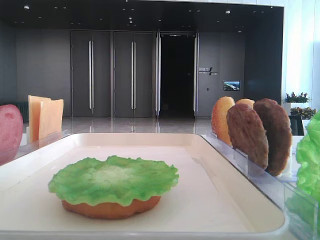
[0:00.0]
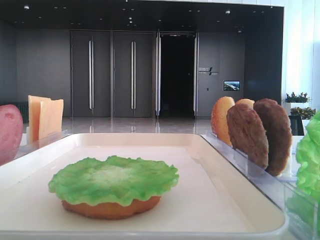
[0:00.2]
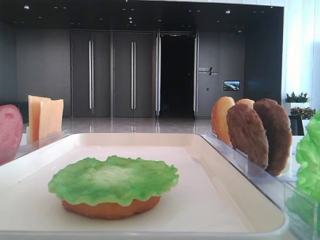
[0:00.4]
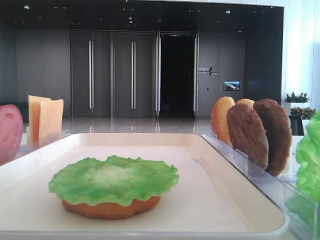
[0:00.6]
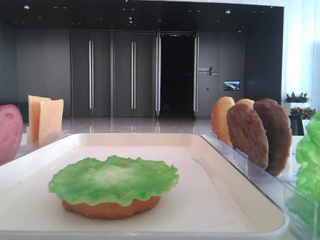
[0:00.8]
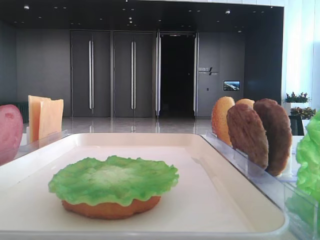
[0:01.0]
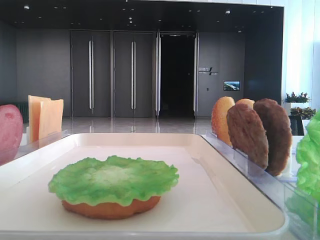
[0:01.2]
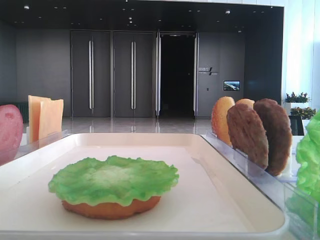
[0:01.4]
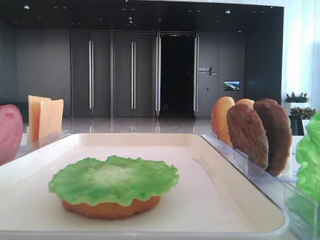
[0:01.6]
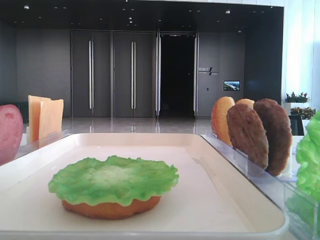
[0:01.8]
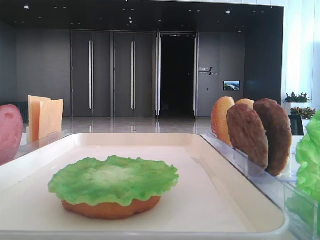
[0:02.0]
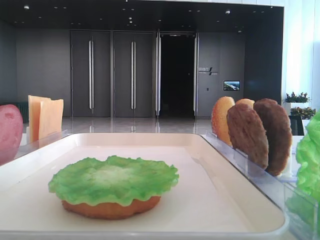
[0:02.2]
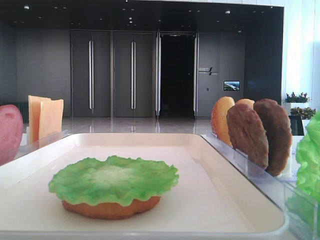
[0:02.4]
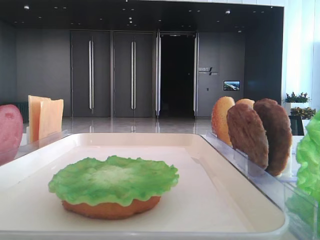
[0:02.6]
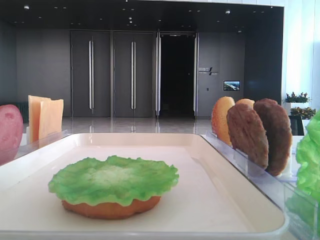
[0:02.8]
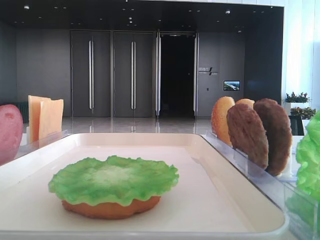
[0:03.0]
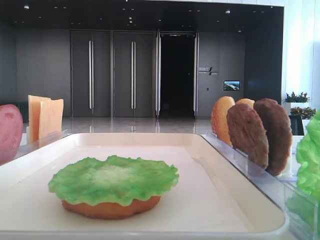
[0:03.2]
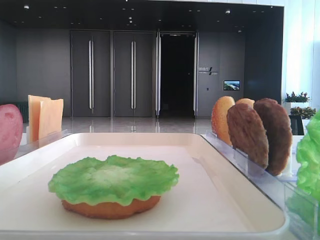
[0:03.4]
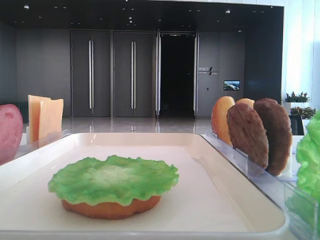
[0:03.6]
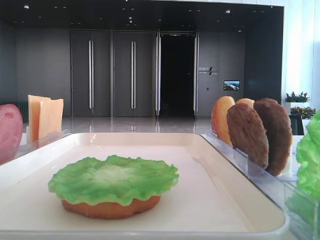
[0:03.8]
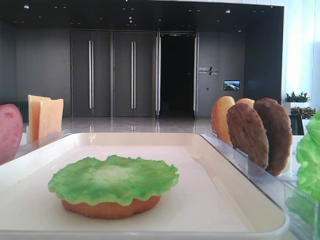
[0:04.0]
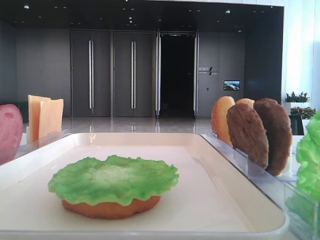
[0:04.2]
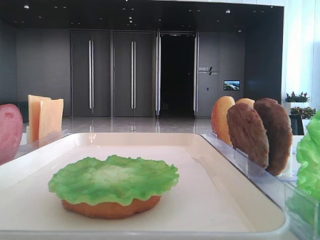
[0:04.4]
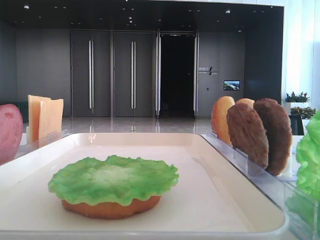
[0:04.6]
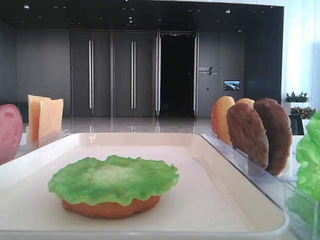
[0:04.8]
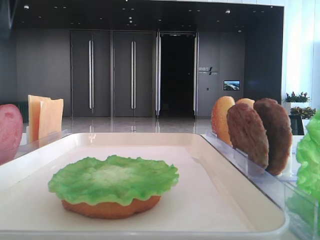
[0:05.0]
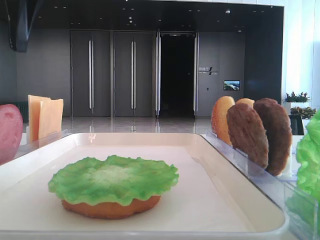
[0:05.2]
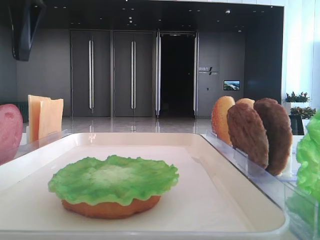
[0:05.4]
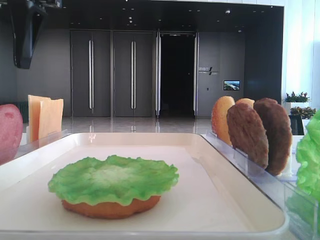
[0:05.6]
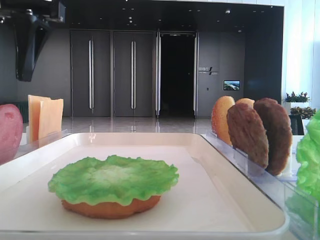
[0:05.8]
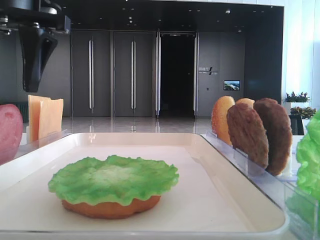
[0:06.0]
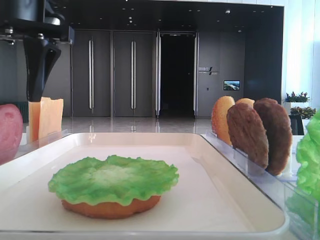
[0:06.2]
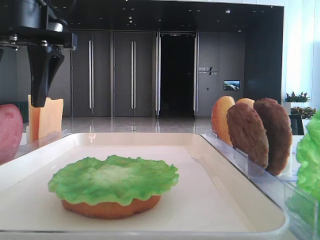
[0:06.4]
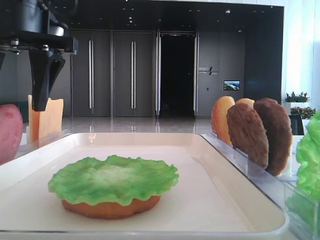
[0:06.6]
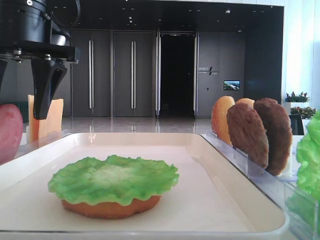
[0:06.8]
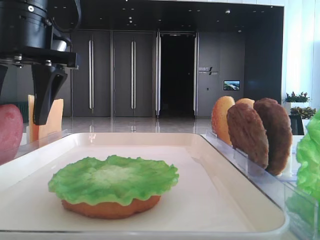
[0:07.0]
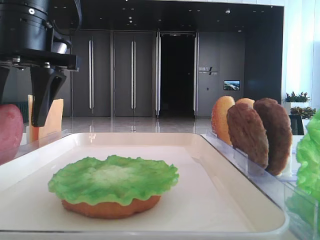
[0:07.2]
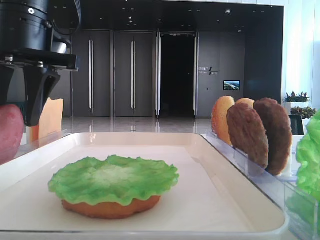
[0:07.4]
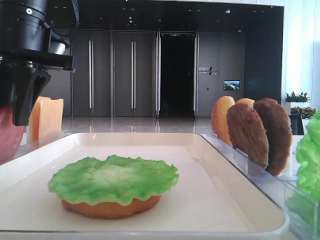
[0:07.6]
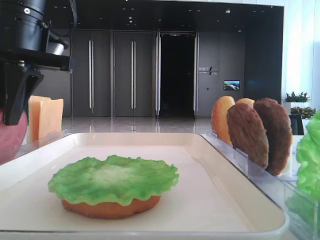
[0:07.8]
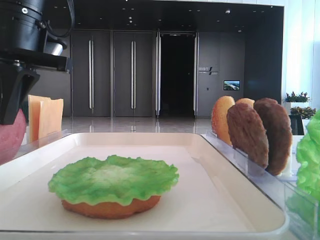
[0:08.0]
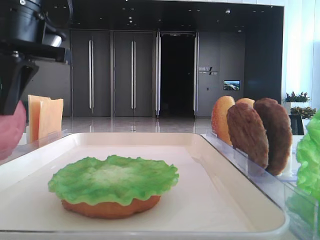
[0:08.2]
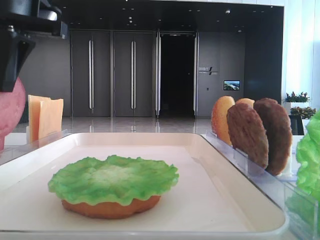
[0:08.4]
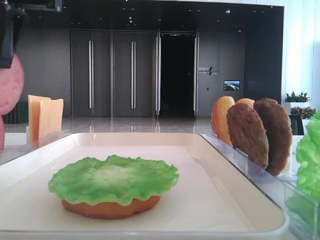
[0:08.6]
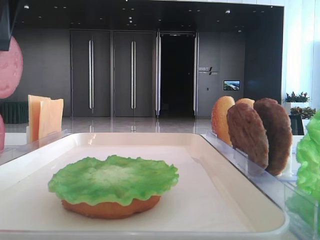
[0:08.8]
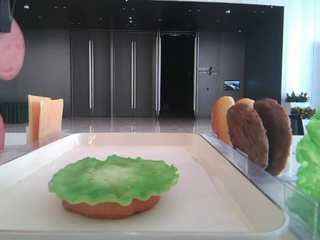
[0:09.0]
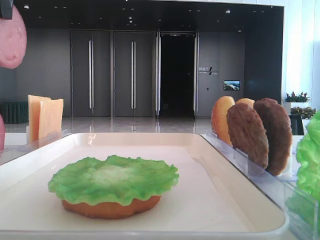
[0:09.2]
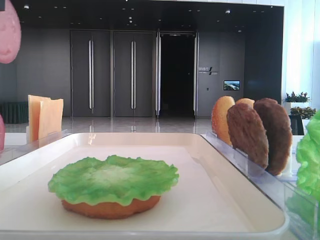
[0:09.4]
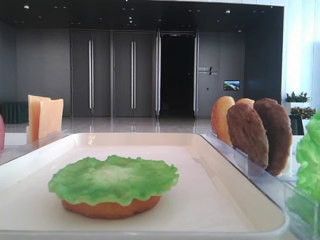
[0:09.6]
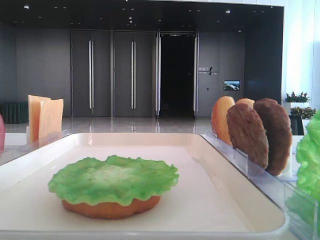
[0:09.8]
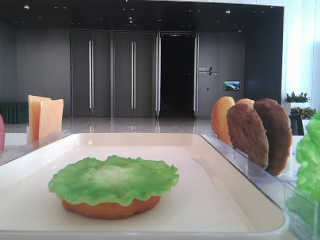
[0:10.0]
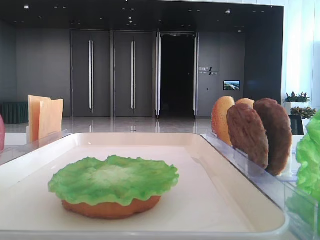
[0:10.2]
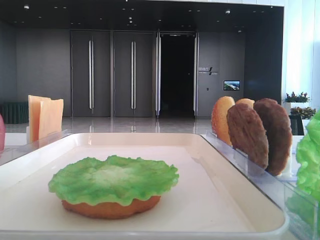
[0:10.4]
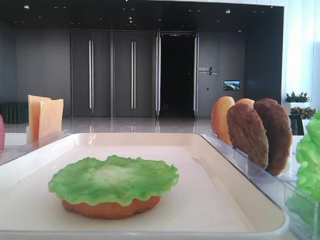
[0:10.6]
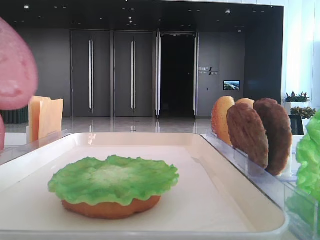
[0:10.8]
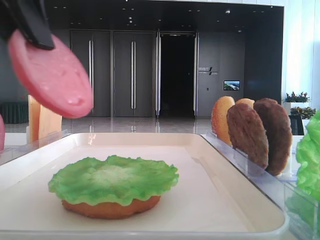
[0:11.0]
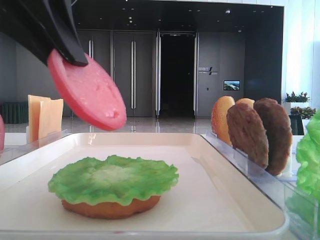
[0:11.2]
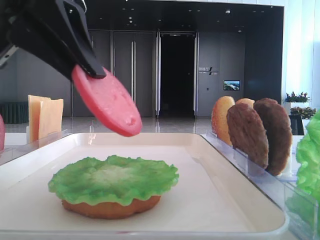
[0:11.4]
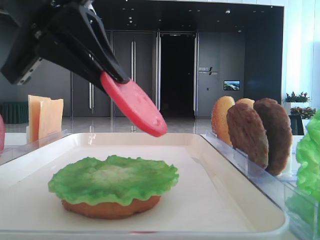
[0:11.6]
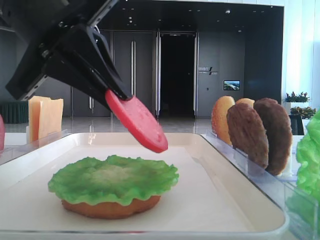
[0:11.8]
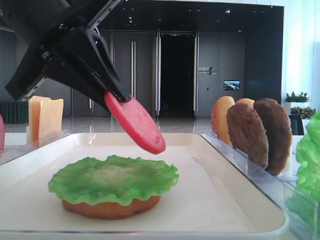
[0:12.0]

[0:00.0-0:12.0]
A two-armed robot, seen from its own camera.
Step, 0.0 to 7.8 s: Pick up the tomato slice with the left hand.
4.4 to 6.0 s: The left gripper shifts about 20 cm to the right and downward.
6.0 to 7.6 s: The left gripper closes its fingers.
7.6 to 9.0 s: The left gripper heads upward, covering approximately 10 cm.
9.0 to 10.4 s: The left gripper shifts some 10 cm backward.
10.4 to 12.0 s: The left gripper shifts about 20 cm downward, to the right and forward.

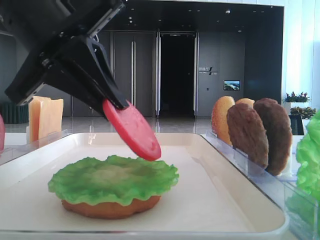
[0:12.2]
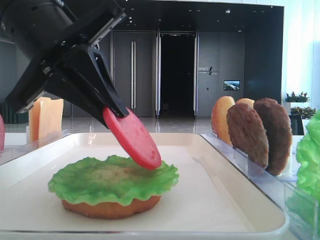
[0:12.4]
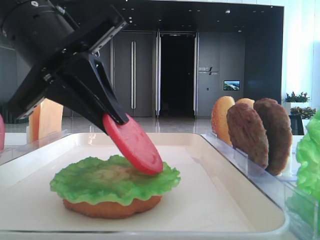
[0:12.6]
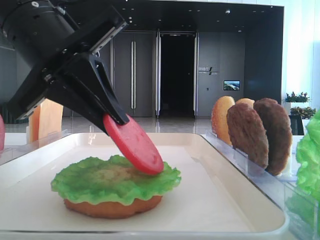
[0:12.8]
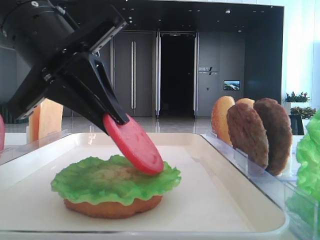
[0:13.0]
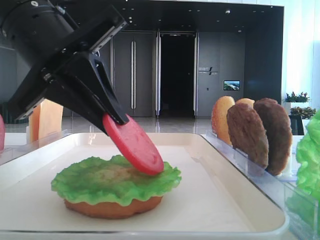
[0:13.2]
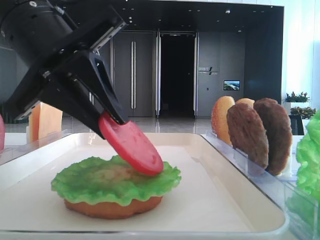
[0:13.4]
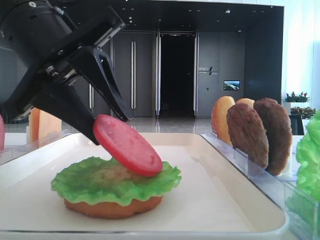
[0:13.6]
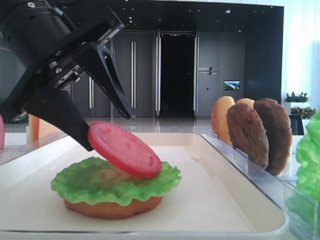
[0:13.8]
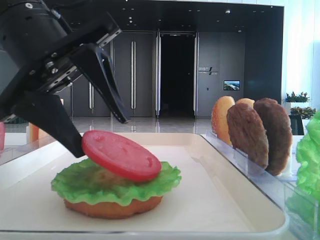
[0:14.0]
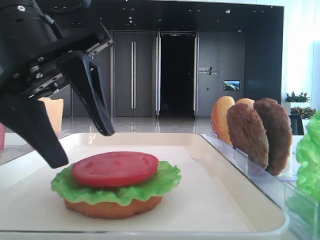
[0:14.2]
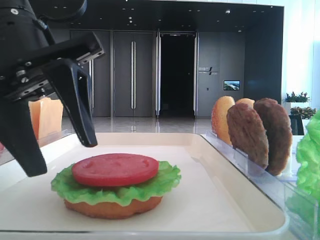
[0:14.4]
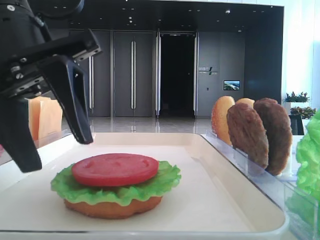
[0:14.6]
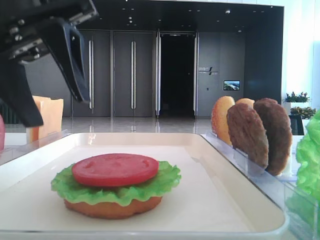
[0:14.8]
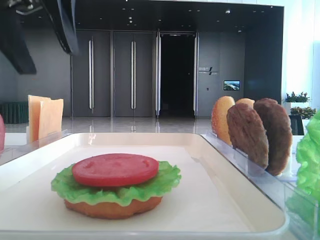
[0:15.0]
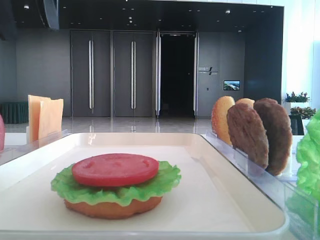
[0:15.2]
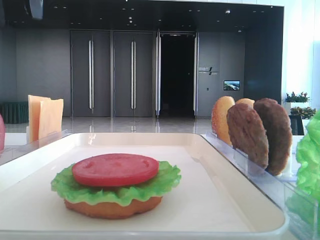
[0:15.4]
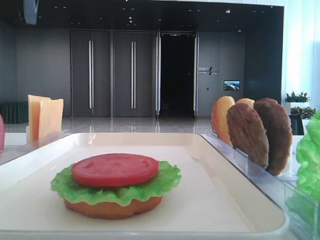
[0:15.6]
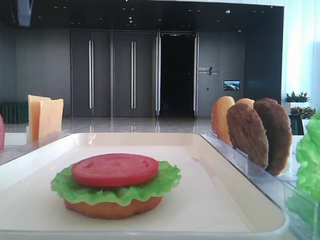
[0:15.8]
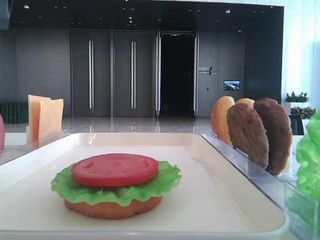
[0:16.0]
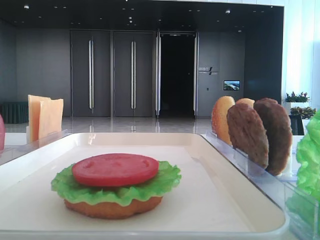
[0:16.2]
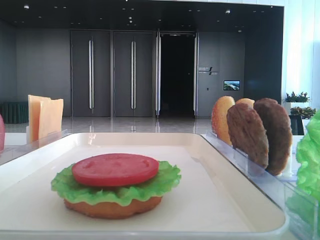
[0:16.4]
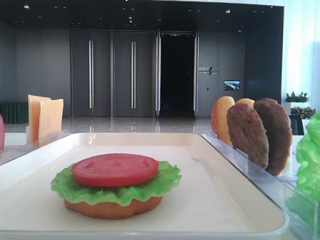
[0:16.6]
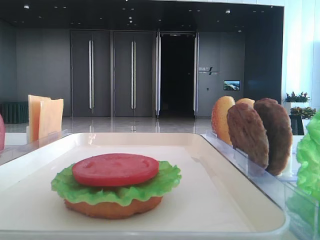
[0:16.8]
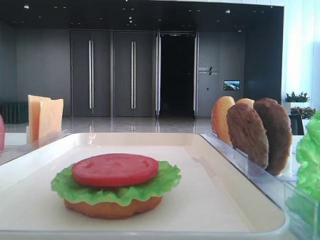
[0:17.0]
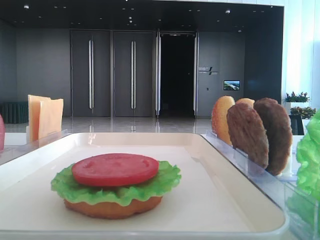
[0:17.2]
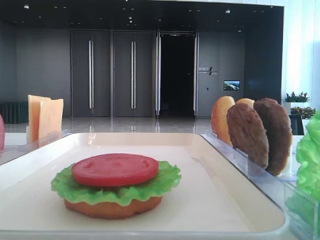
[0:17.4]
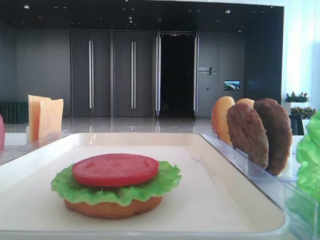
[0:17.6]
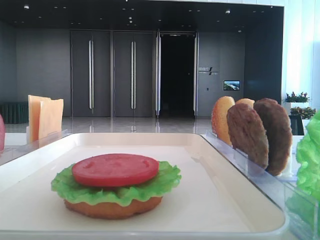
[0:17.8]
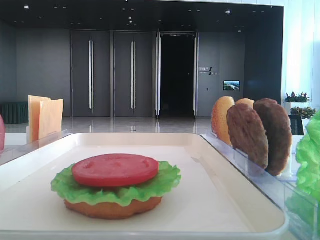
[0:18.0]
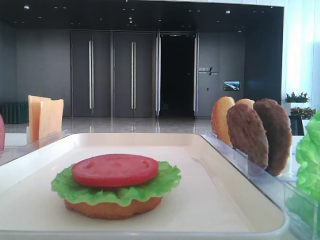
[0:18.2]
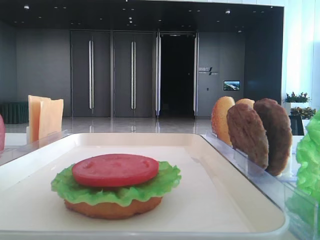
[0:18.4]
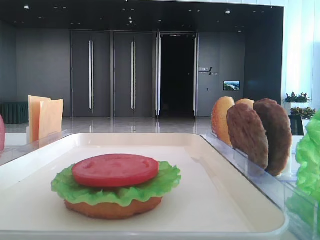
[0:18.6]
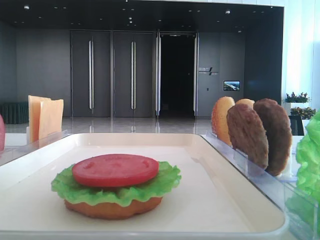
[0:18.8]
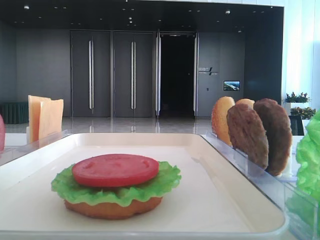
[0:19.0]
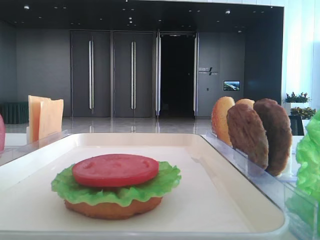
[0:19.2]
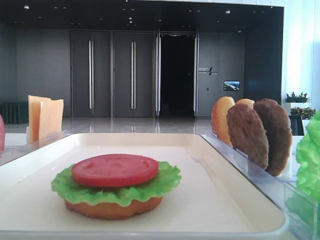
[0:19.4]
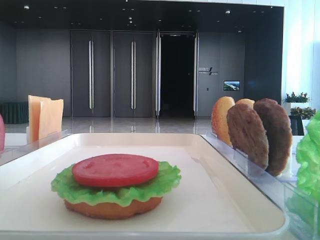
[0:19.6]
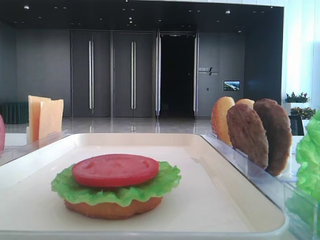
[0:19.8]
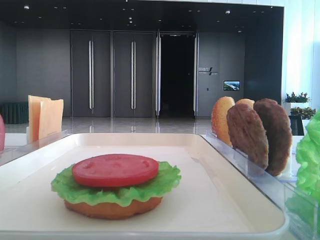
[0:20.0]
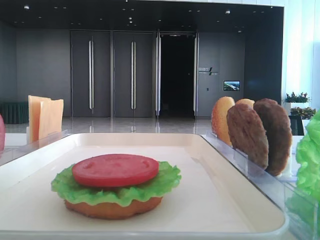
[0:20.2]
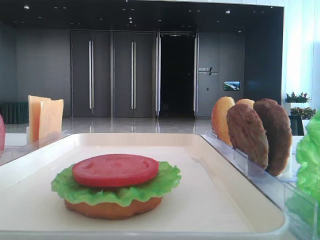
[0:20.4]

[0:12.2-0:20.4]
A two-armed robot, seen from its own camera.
Step, 12.2 to 14.2 s: Place the tomato slice on the lettuce leaf with the left hand.
12.2 to 13.8 s: The left gripper opens its fingers.
13.8 to 15.4 s: The left gripper travels upward by some 15 cm.
17.2 to 18.8 s: The left gripper moves backward, about 30 cm.

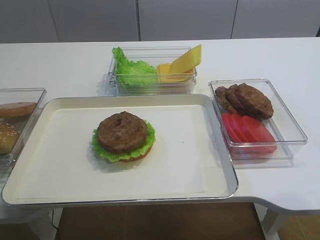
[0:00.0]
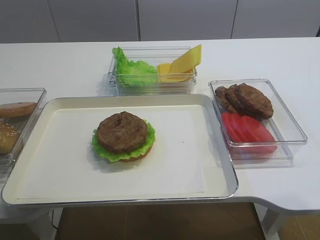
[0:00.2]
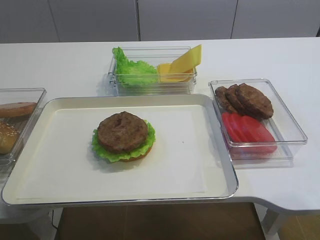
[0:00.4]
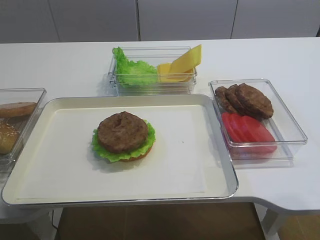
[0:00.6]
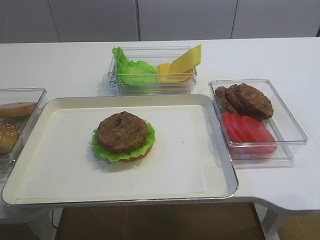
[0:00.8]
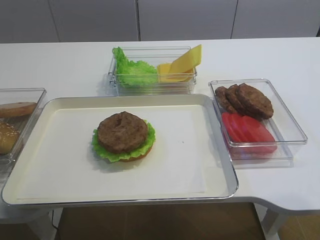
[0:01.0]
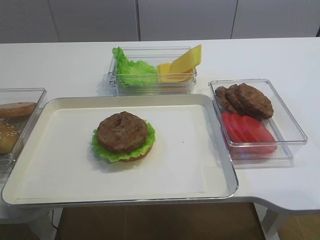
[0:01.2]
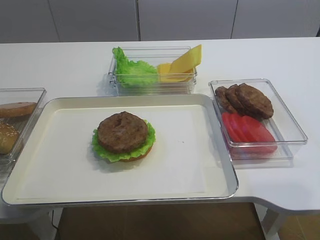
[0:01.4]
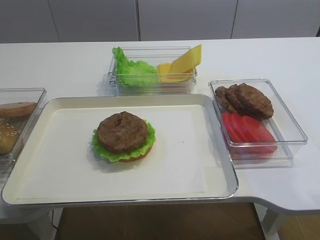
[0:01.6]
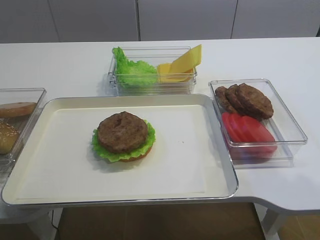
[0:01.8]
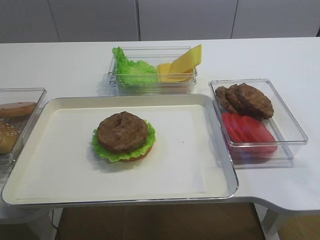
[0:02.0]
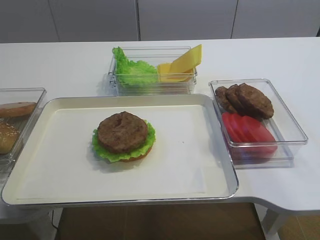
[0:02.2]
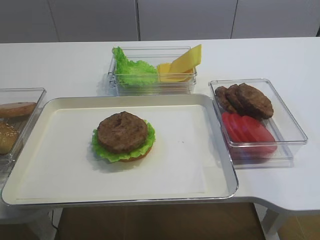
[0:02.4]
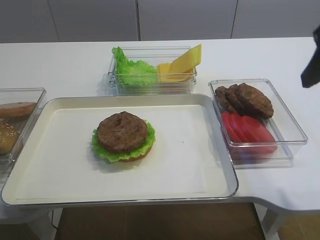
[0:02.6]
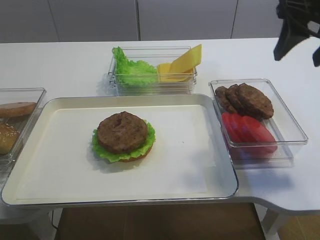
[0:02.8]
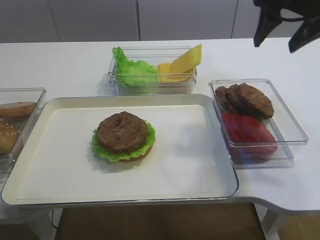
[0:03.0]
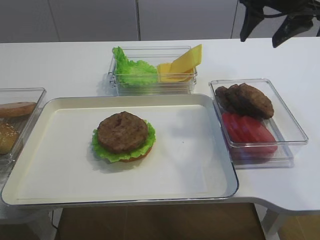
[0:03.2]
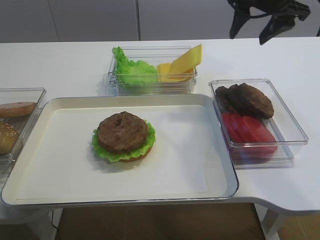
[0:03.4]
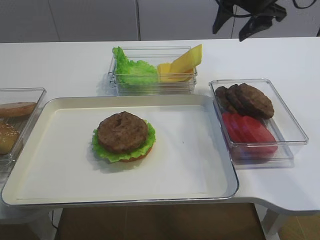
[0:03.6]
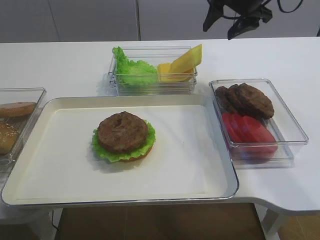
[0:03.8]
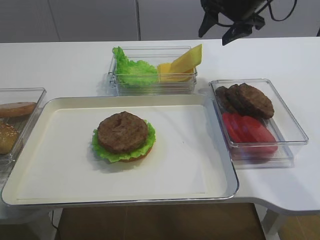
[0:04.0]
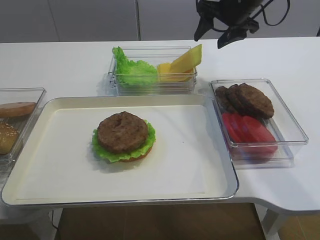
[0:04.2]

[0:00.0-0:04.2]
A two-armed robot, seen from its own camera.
1.4 to 2.8 s: The right gripper heads forward, covering approximately 25 cm.
2.8 to 4.2 s: The right gripper is displaced forward by some 20 cm.
